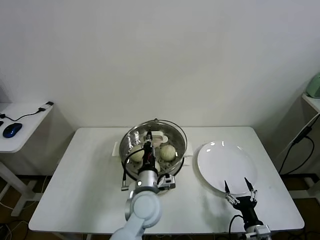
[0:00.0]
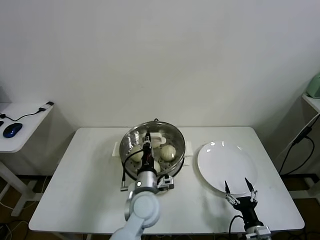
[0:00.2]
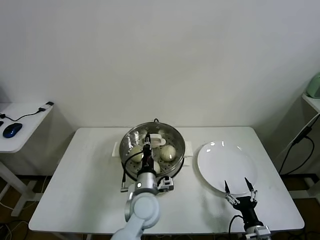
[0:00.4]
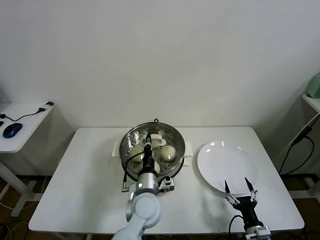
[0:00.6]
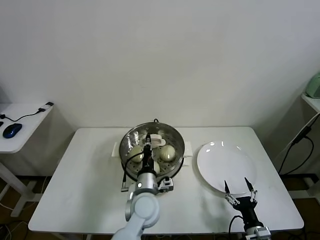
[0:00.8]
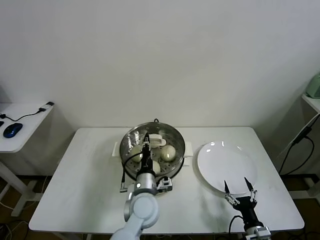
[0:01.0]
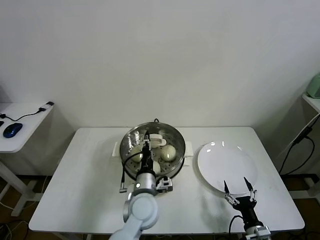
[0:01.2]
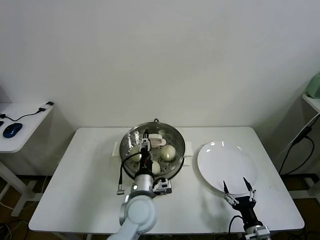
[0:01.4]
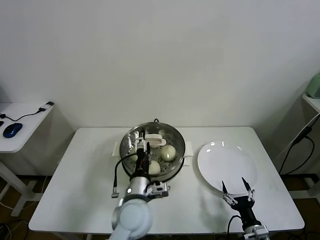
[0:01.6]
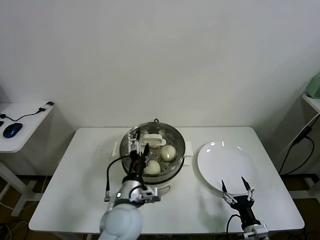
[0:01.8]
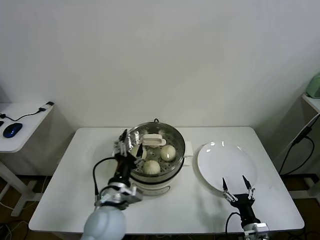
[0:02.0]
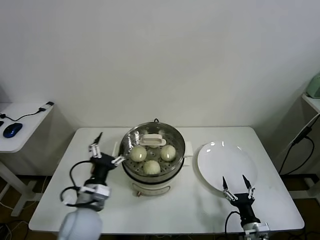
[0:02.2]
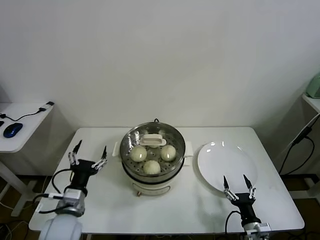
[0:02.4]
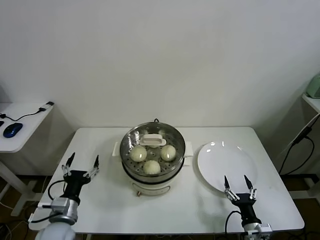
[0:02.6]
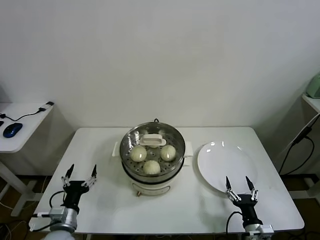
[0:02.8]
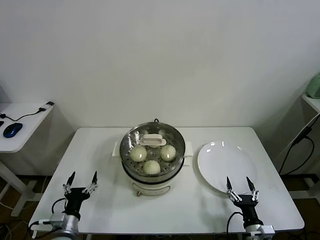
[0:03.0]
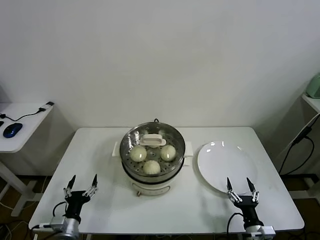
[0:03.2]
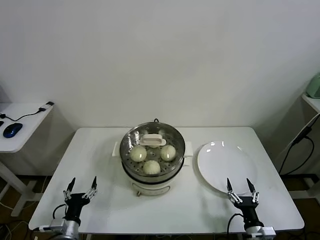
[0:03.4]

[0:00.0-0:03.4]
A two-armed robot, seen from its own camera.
Task of the whole recording: take steamed baozi put them in steamer.
0:00.0 to 0:01.6: The left gripper opens.
0:01.6 to 0:03.4: The left gripper moves to the left and downward, approximately 30 cm.

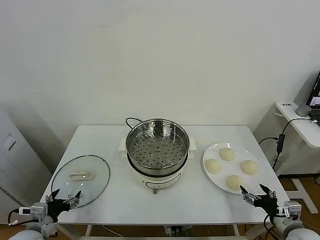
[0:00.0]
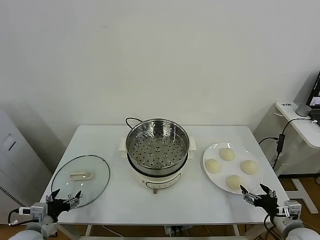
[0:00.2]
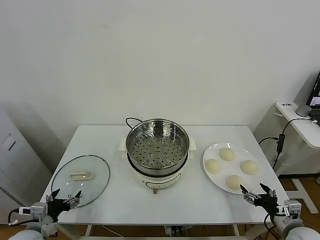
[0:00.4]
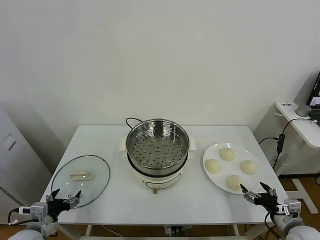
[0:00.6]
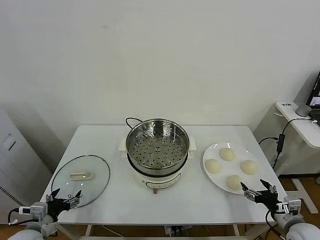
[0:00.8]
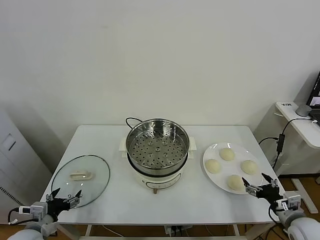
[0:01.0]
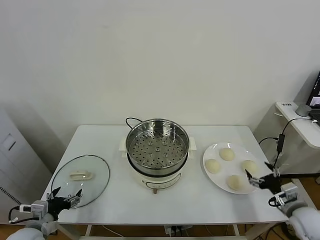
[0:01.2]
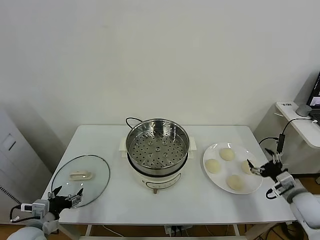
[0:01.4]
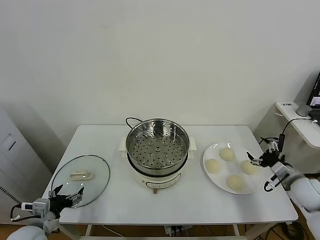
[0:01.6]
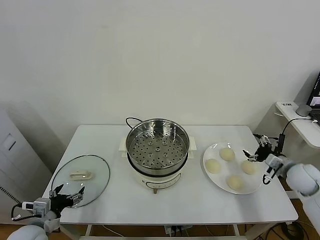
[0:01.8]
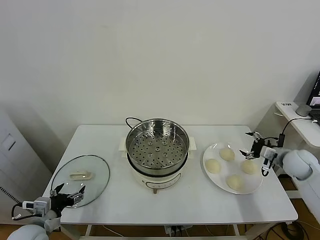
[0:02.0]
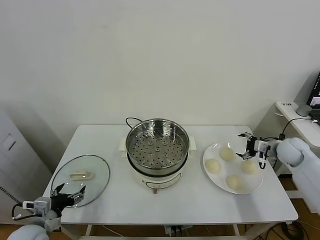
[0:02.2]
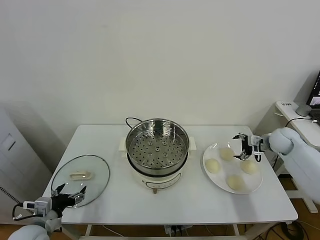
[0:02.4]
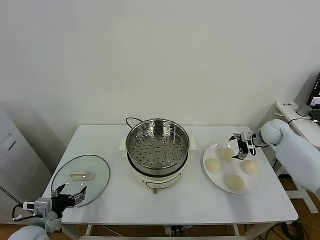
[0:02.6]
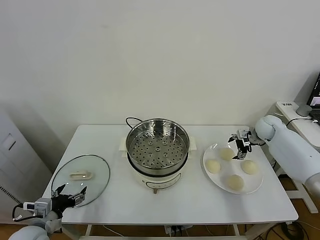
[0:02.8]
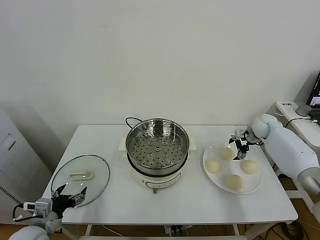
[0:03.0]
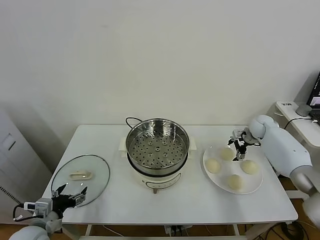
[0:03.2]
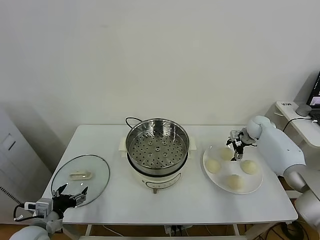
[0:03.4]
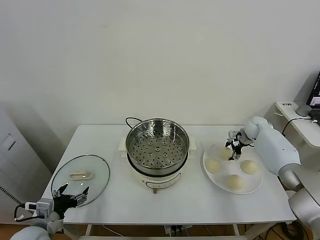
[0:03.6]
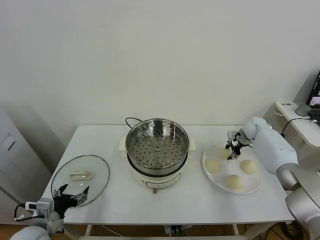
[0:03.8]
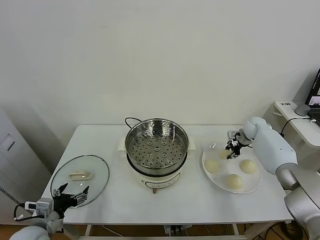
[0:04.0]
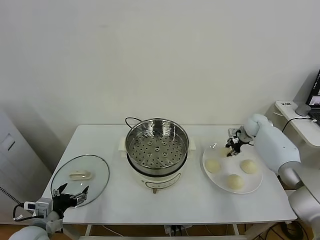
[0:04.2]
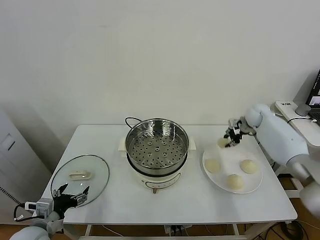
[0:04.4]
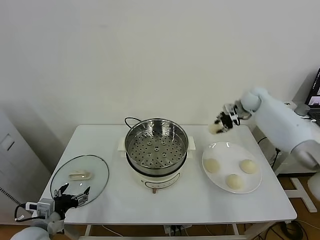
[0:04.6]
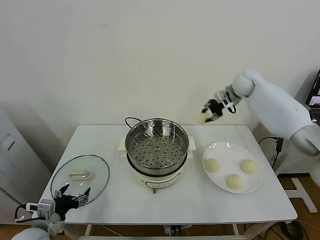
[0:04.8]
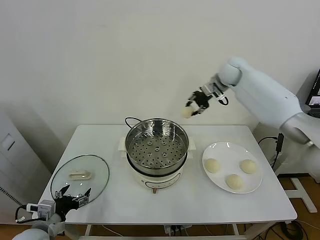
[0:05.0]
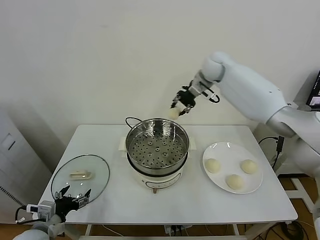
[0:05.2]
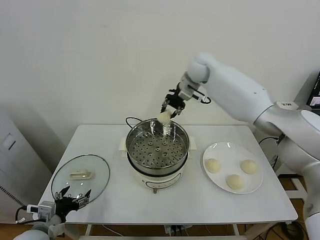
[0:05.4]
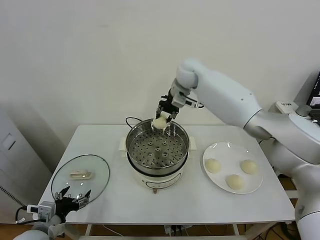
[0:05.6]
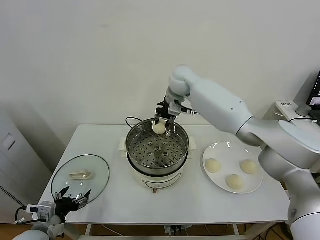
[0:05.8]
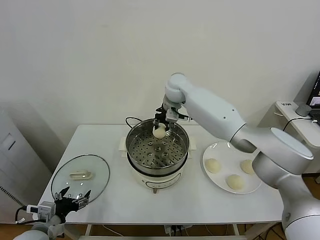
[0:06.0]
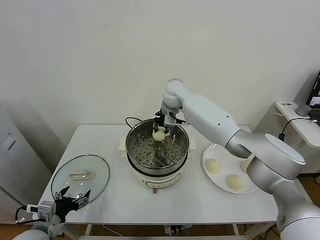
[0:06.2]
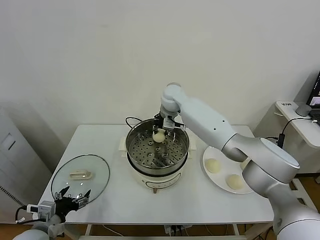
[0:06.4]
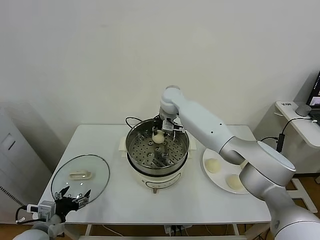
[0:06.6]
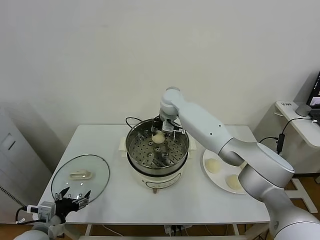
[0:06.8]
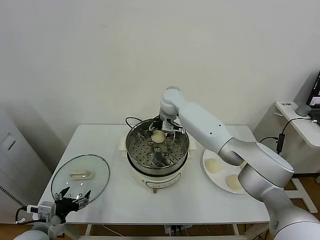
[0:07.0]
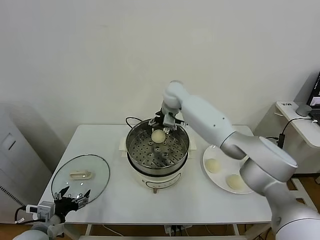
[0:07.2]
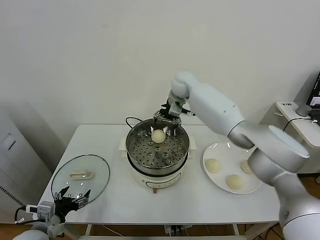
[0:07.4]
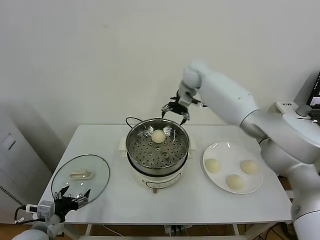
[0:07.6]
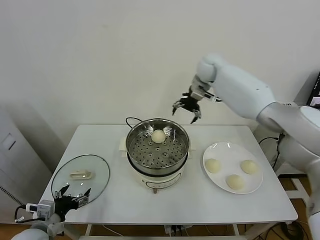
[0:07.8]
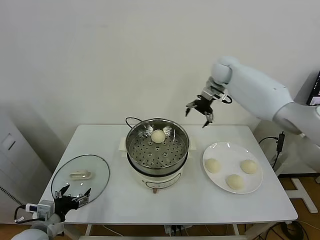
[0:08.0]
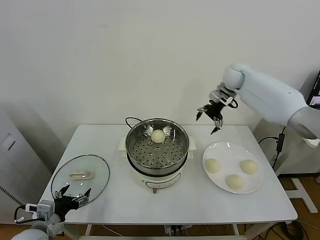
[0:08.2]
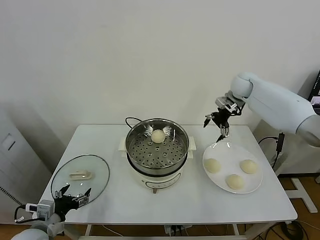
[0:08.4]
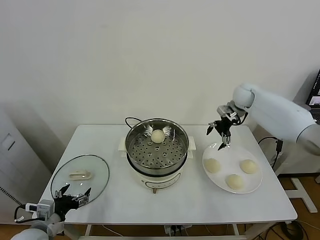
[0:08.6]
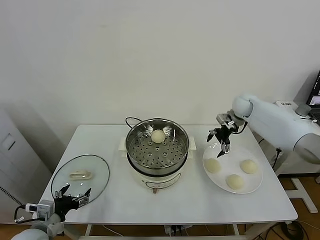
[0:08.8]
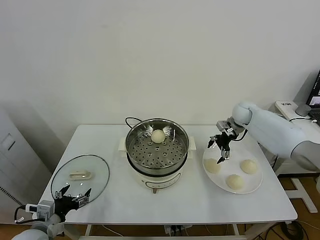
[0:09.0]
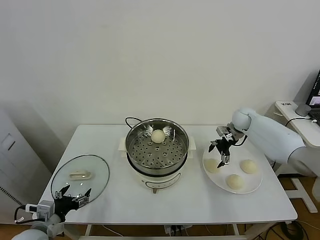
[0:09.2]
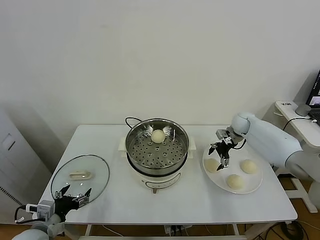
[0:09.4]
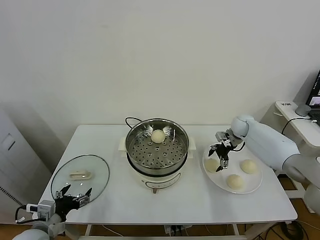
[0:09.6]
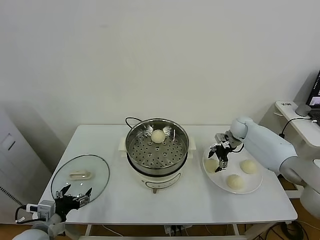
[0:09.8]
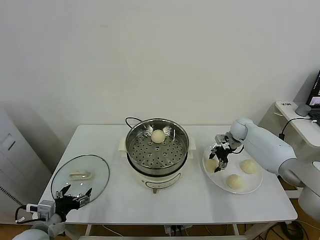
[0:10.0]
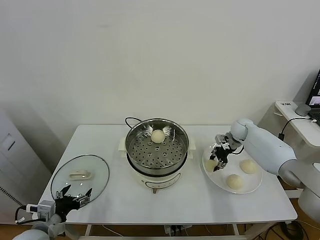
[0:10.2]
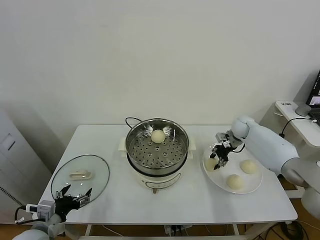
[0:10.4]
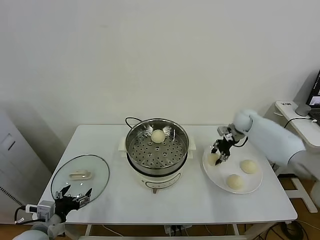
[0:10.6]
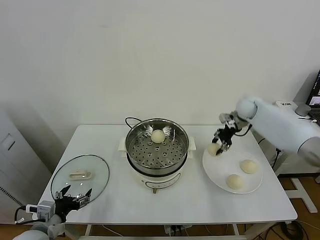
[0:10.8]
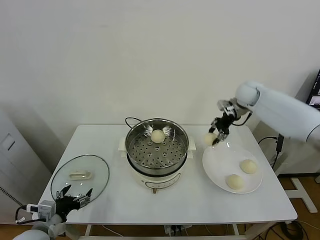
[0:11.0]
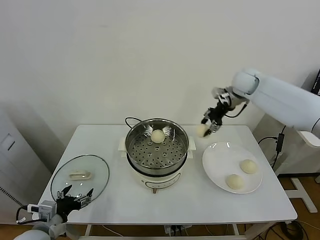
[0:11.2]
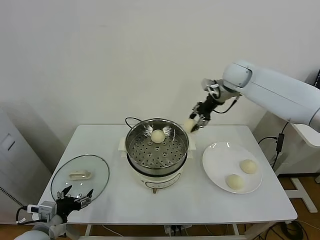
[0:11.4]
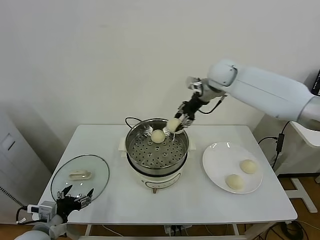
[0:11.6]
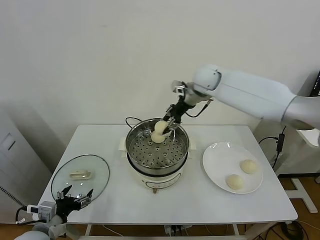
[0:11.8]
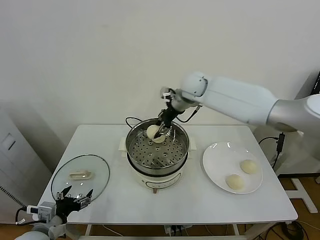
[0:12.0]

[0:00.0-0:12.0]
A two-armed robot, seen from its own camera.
Task of the whole recording: take steamed baozi put them in steamer.
Step, 0:00.0 to 0:03.8: Grasp the baozi in the plate with right gripper.
Step, 0:04.0 to 0:07.2: Place the baozi on the steamer with right gripper.
Step, 0:07.4 to 0:10.0: Grasp the baozi in the plate with right gripper.
0:01.6 to 0:03.0: The right gripper moves forward, roughly 25 cm.
0:03.0 to 0:04.4: The right gripper moves upward, about 10 cm, and closes up.
0:04.4 to 0:06.0: The right gripper travels to the left by roughly 35 cm.
0:06.0 to 0:07.6: The right gripper heads to the right and upward, covering some 10 cm, and opens.
0:07.6 to 0:09.0: The right gripper shifts some 25 cm to the right and downward.
0:09.0 to 0:10.4: The right gripper closes.
0:10.4 to 0:12.0: The right gripper is displaced to the left and upward by about 30 cm.

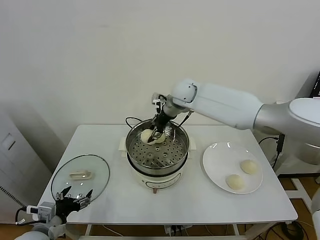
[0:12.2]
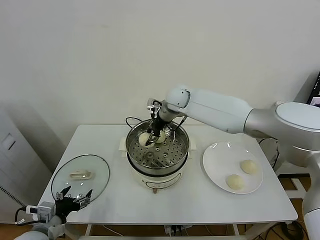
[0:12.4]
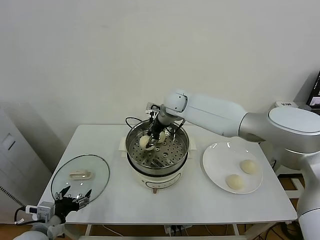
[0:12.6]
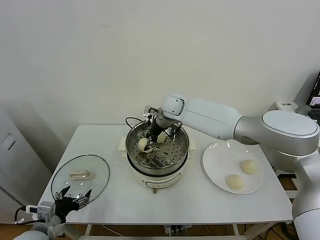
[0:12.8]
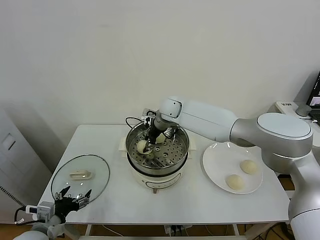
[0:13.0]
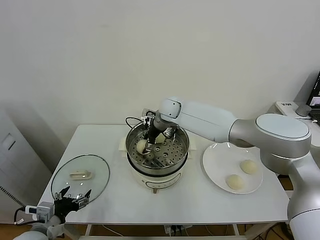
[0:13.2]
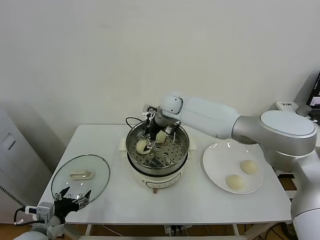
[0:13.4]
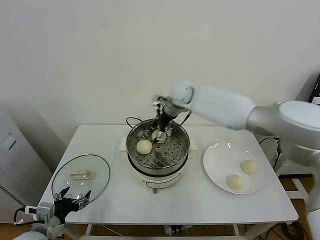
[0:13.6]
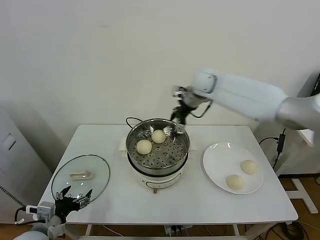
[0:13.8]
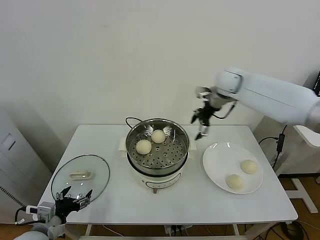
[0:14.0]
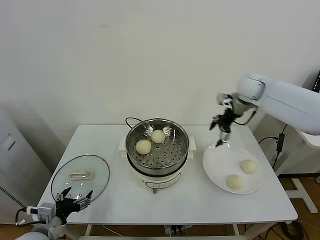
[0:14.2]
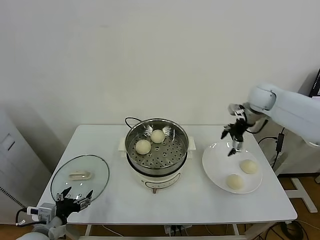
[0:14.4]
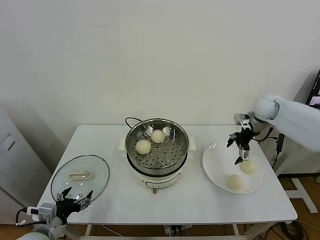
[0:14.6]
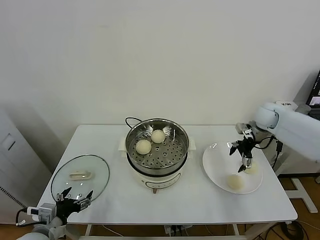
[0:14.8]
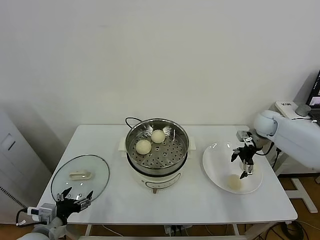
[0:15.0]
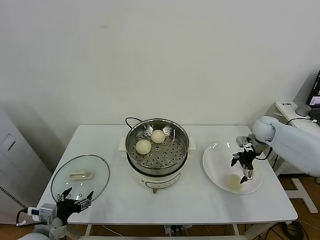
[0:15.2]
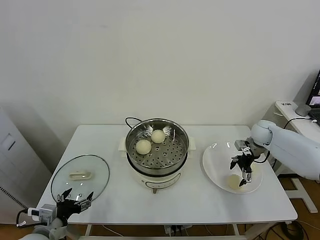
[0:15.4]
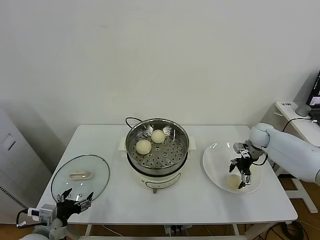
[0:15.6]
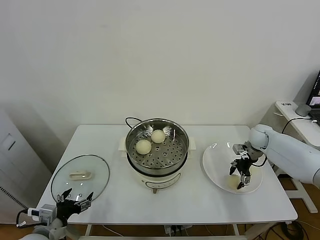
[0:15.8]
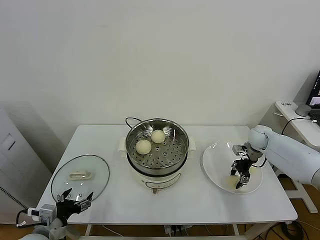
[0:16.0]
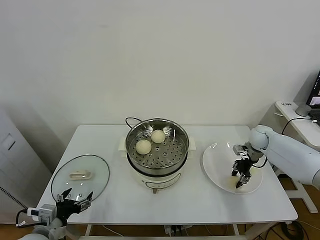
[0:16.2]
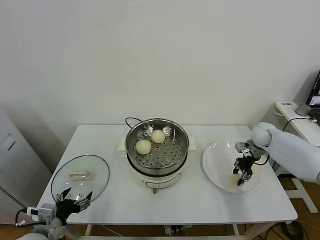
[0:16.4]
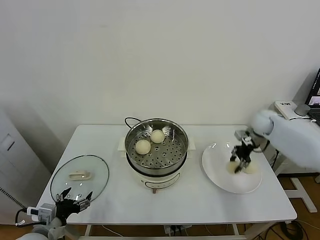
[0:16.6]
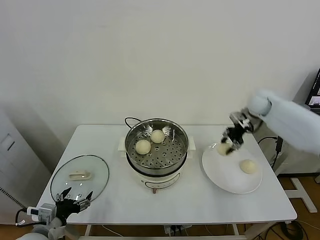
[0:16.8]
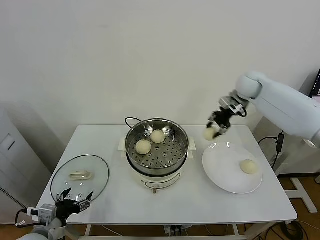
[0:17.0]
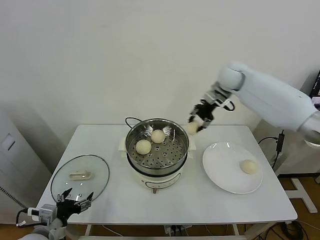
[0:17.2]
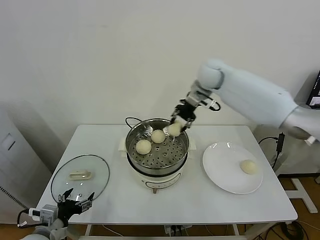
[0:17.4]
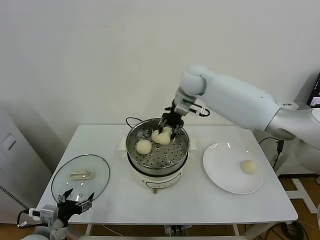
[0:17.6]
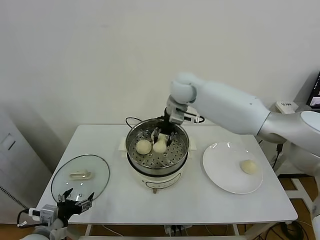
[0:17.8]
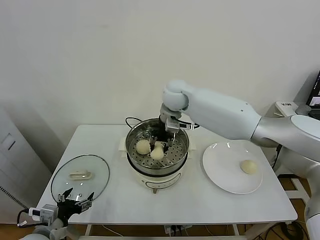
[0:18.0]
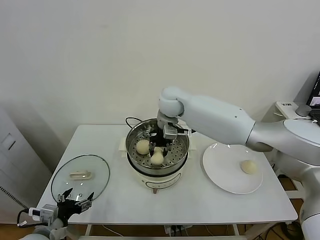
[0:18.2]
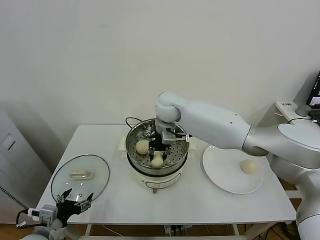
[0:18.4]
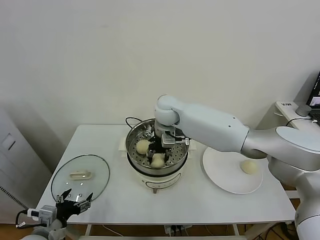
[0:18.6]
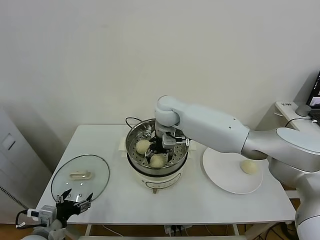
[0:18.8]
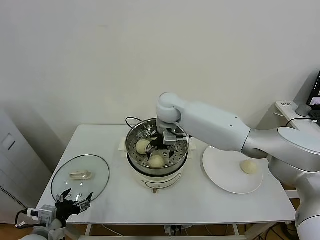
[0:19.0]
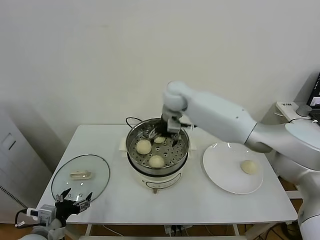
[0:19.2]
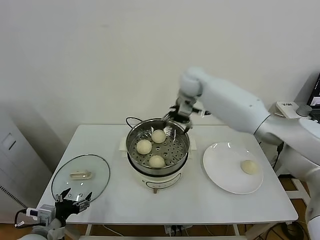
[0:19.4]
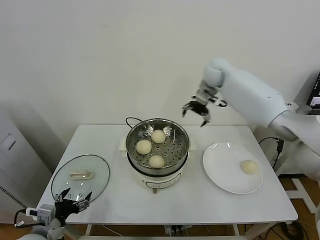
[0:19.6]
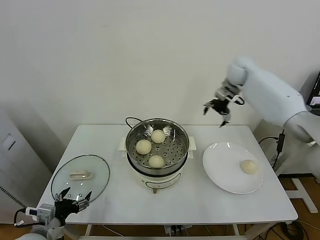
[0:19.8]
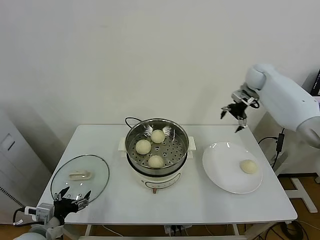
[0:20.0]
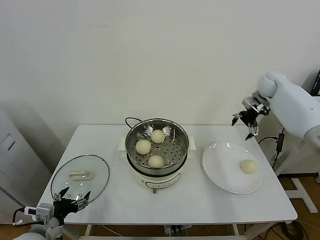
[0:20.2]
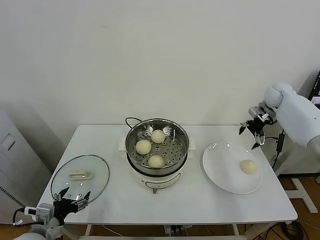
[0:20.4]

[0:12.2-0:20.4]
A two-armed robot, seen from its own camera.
Task of the whole recording: take steamed baozi put them in steamer.
Step, 0:13.6 to 0:16.0: Grasp the baozi in the plate with right gripper.
Step, 0:16.2 to 0:19.2: Place the baozi on the steamer with right gripper.
0:12.2 to 0:13.8: The right gripper heads to the right, covering about 10 cm, and opens up.
0:13.8 to 0:15.4: The right gripper moves to the right and downward, about 30 cm.
0:15.4 to 0:17.2: The right gripper goes approximately 30 cm upward and to the left, and closes up.
0:17.2 to 0:18.8: The right gripper goes some 20 cm to the left and downward, and opens up.
0:18.8 to 0:20.4: The right gripper travels to the right by approximately 40 cm.
